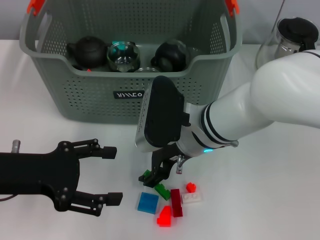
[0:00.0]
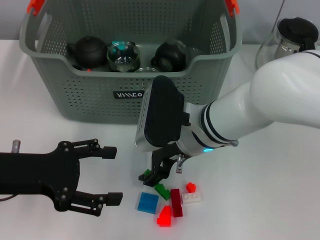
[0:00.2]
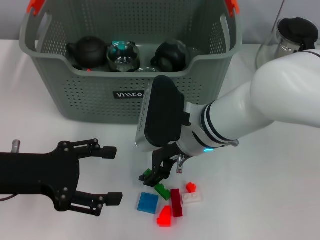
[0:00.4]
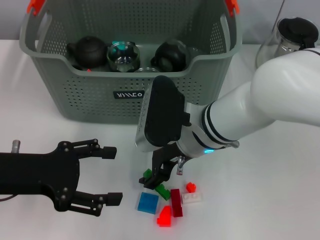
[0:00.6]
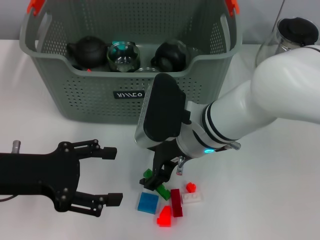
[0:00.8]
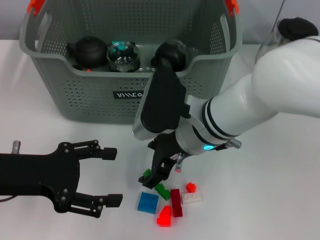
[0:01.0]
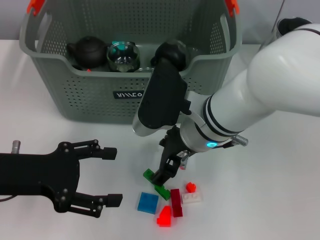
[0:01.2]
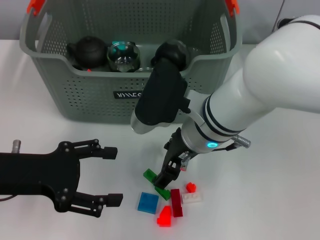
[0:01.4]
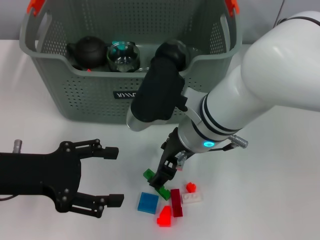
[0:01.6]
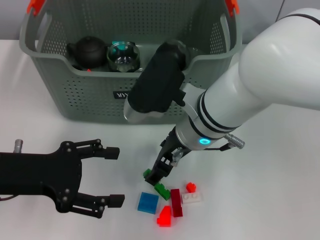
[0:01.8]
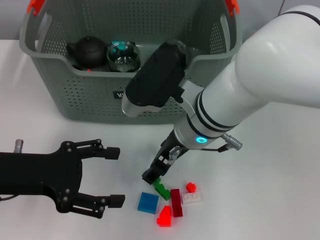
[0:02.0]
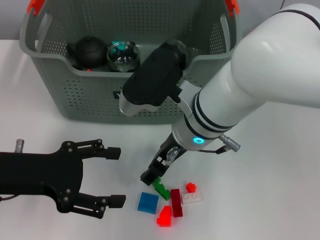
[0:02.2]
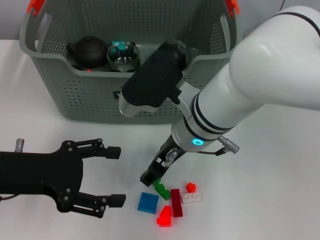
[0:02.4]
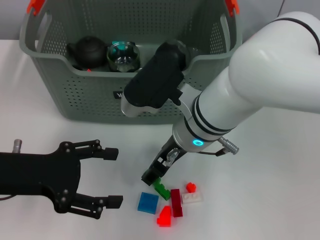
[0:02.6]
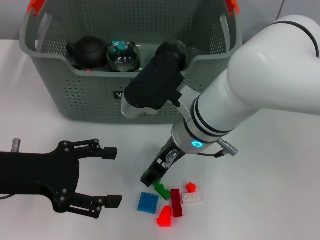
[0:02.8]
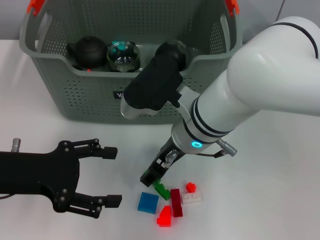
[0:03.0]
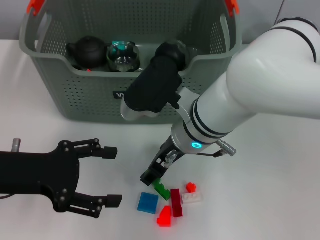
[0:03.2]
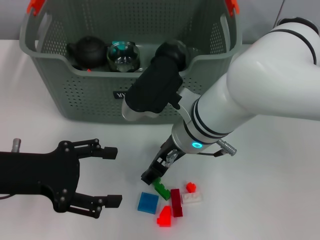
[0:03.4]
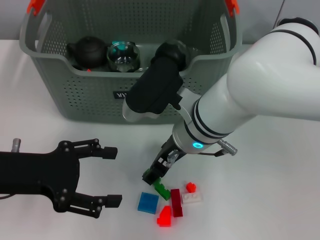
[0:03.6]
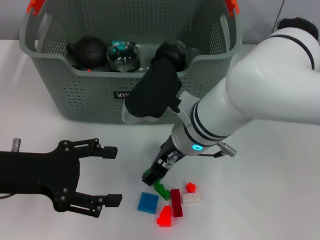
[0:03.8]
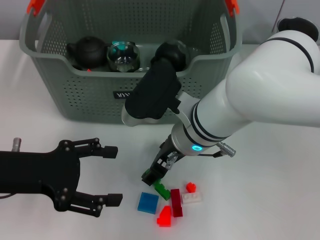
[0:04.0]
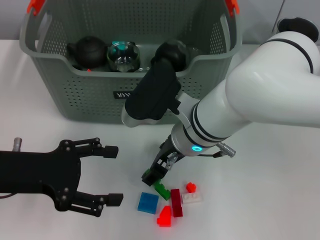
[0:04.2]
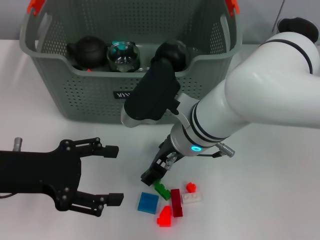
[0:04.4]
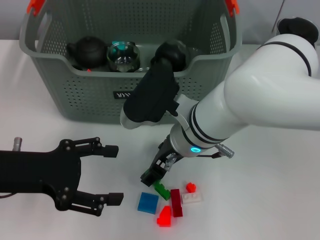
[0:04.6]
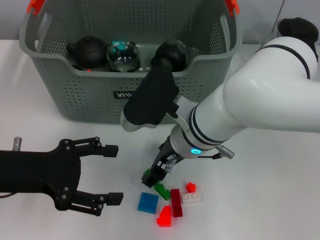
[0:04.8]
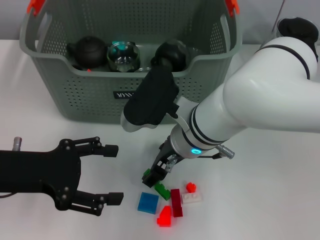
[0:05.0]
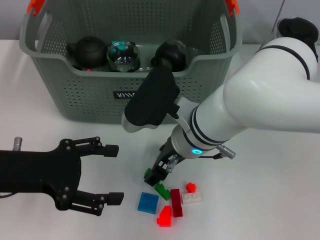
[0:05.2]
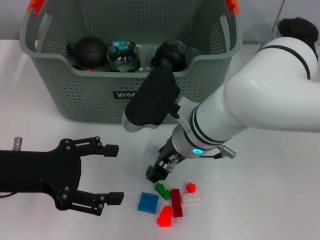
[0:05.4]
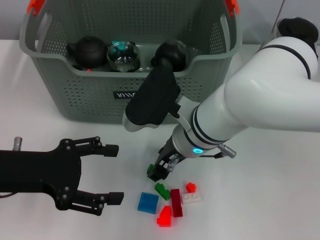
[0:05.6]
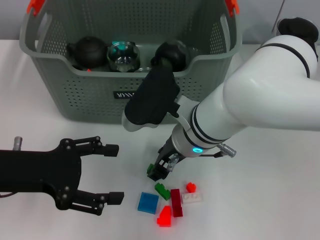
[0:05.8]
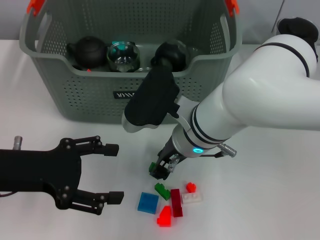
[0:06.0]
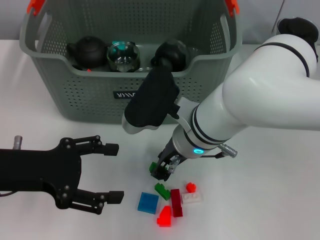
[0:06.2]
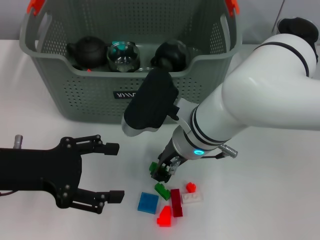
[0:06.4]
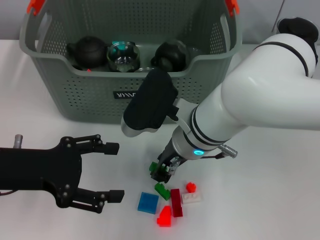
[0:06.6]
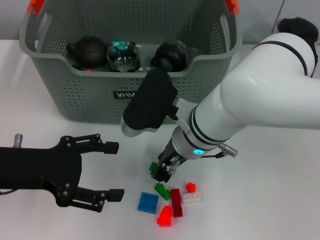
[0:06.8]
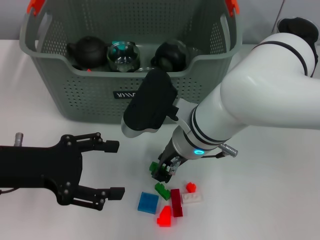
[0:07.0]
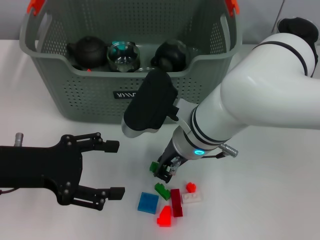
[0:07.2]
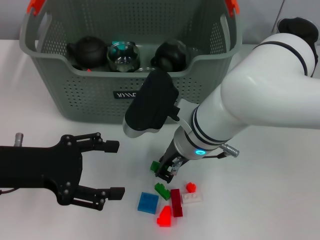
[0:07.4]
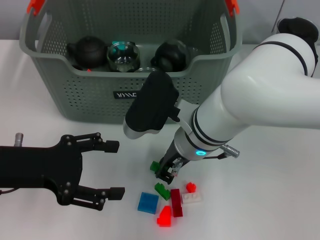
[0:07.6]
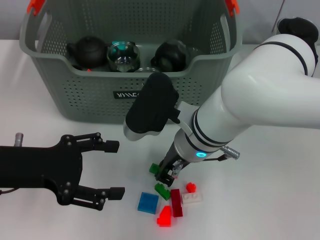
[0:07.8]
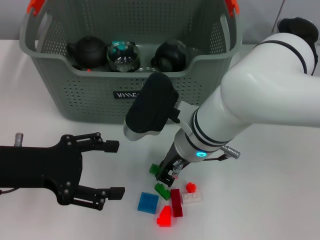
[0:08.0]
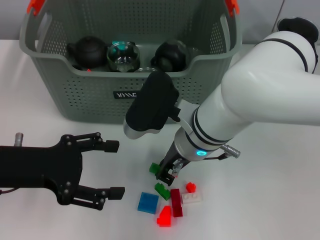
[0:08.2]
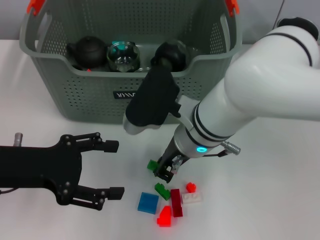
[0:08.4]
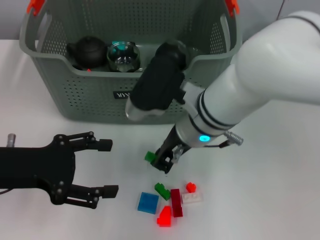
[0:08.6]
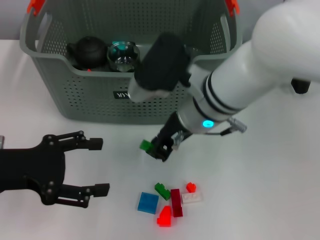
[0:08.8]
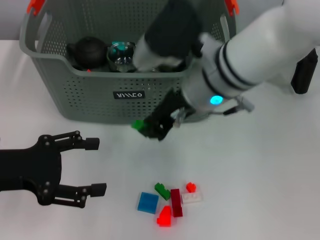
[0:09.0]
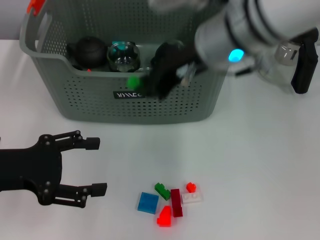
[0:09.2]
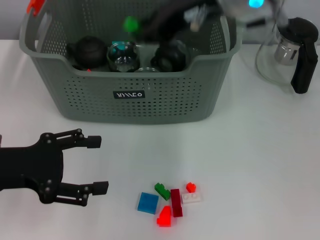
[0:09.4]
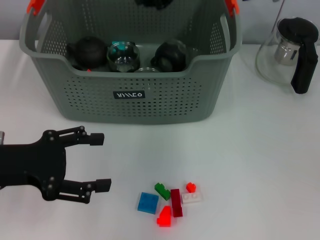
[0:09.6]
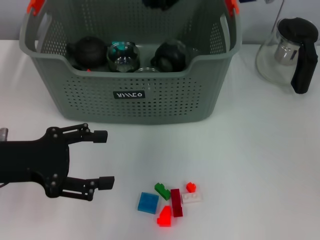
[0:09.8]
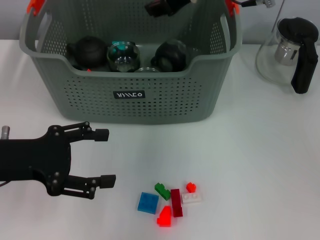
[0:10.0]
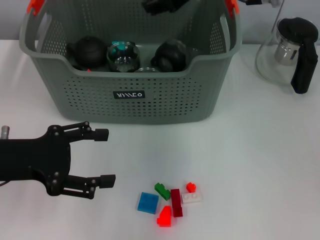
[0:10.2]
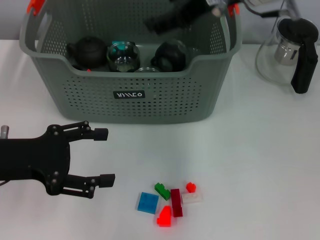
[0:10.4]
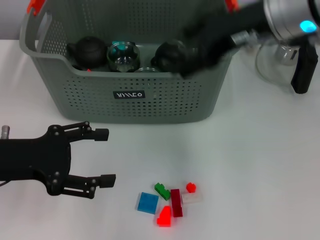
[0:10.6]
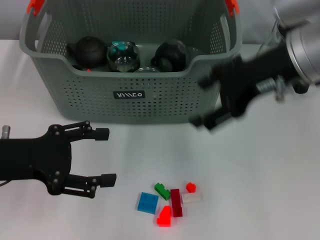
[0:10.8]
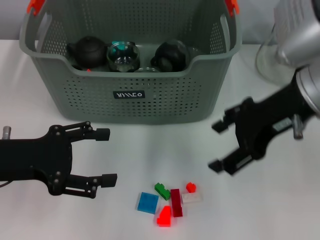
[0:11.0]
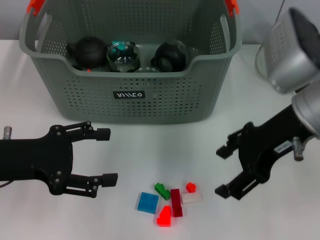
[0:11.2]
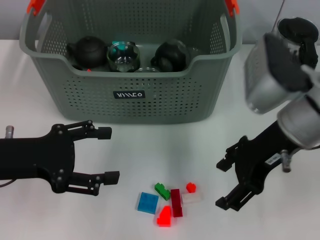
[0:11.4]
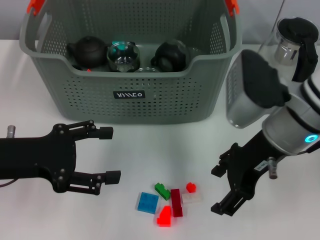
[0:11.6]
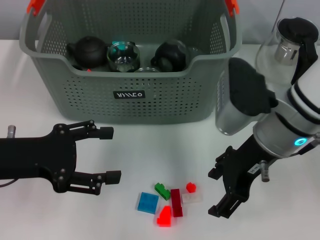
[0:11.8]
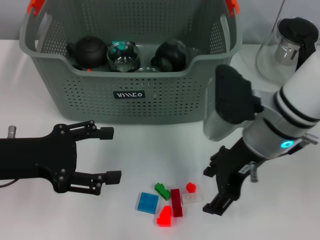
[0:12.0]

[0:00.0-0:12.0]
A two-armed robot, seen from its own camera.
Task of the whole recording: pick up the teacup on the table and place it into the storage bin, pick up the block on the table and place it into the storage bin.
Step, 0:00.0 to 0:07.6: Grasp the green block with right gripper.
Step, 0:07.8 to 0:09.8: Place the green block in the storage box with right gripper.
0:00.0 to 0:01.6: The grippers make only small movements.
0:01.6 to 0:03.0: The grippers stay close to where they were, moving slightly.
0:03.0 to 0:04.4: Both grippers stay put.
0:04.4 to 0:06.0: The right gripper closes its fingers.
0:06.0 to 0:07.6: The right gripper closes its fingers.
0:07.6 to 0:09.0: The right gripper heads upward, covering roughly 10 cm.
0:09.0 to 0:10.4: The right gripper heads upward, to the right and forward, covering some 10 cm, and opens its fingers.
0:10.4 to 0:12.0: The right gripper is displaced downward and backward by some 15 cm.

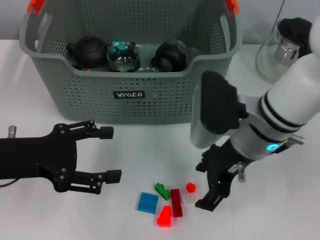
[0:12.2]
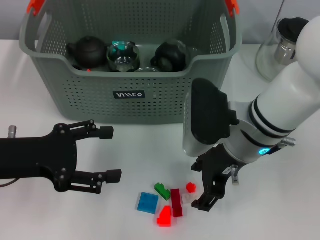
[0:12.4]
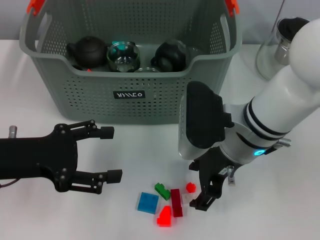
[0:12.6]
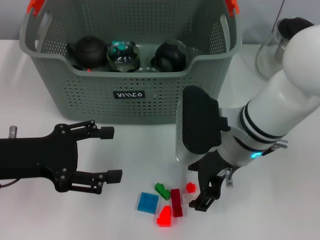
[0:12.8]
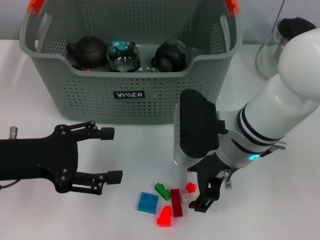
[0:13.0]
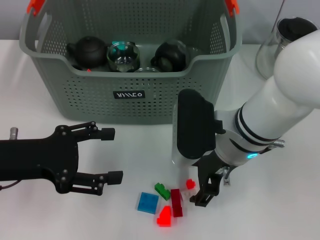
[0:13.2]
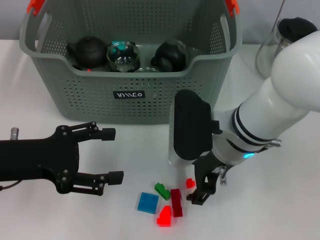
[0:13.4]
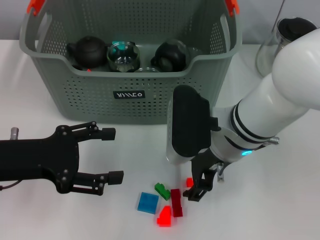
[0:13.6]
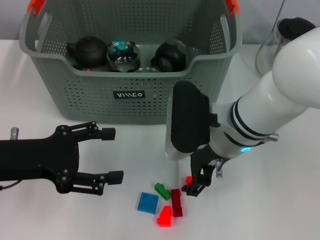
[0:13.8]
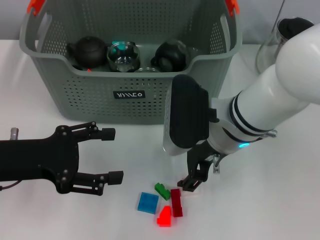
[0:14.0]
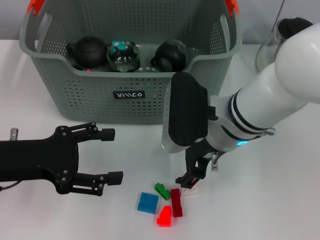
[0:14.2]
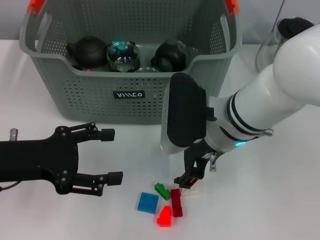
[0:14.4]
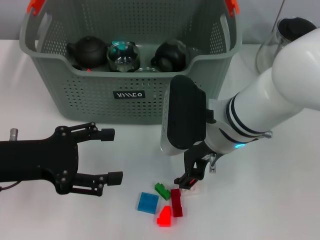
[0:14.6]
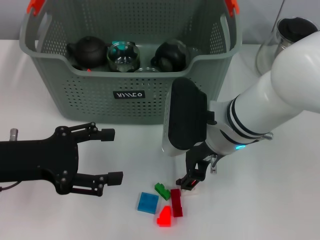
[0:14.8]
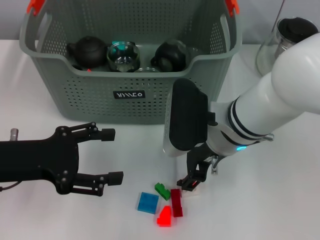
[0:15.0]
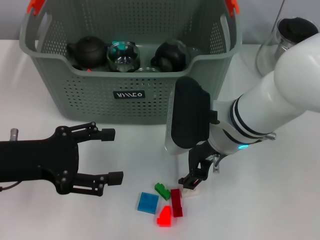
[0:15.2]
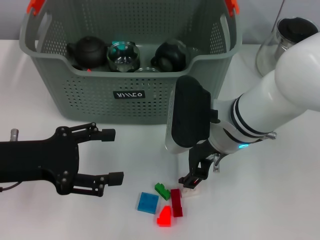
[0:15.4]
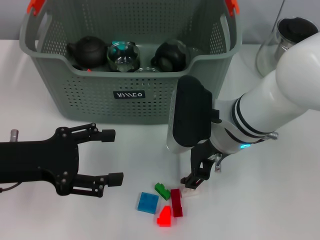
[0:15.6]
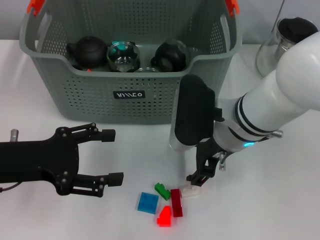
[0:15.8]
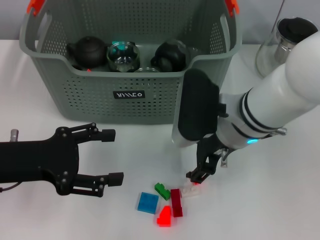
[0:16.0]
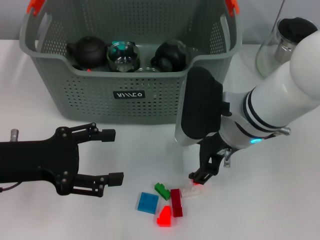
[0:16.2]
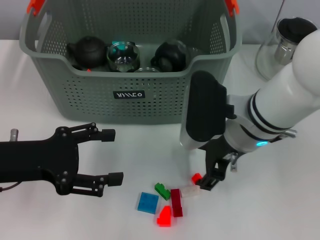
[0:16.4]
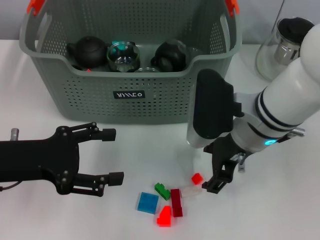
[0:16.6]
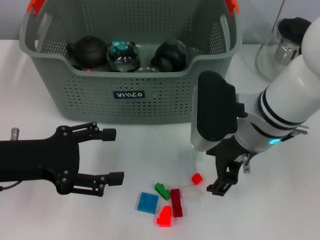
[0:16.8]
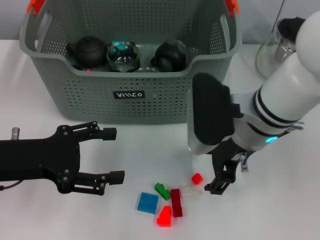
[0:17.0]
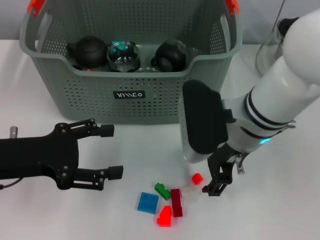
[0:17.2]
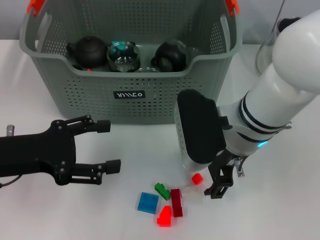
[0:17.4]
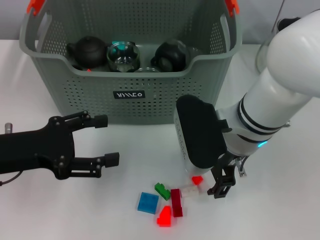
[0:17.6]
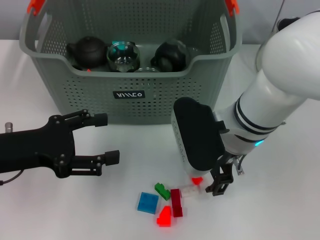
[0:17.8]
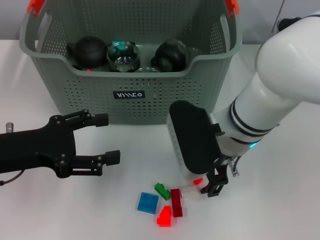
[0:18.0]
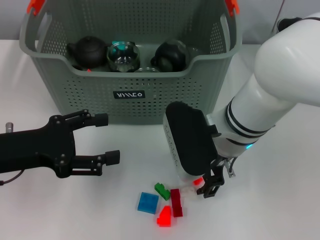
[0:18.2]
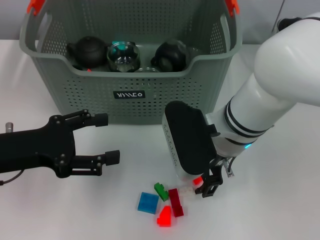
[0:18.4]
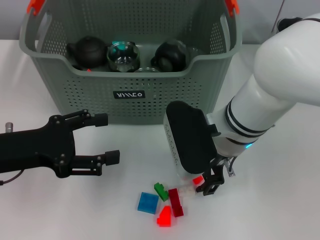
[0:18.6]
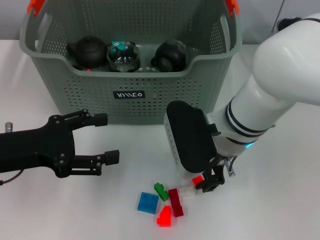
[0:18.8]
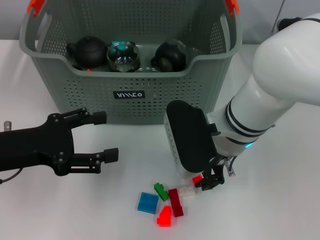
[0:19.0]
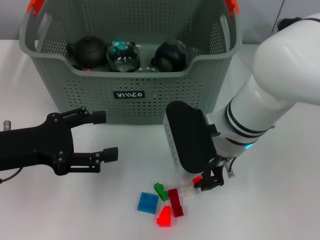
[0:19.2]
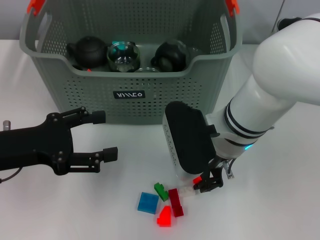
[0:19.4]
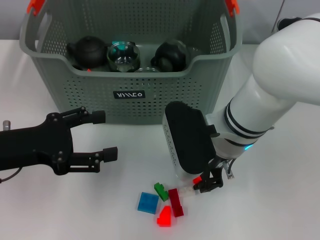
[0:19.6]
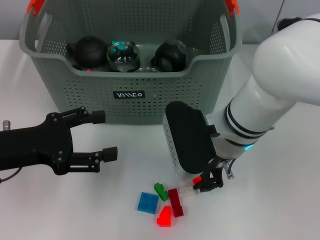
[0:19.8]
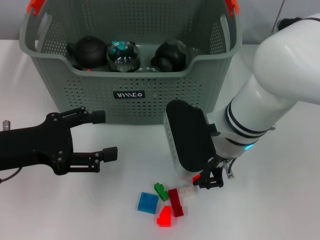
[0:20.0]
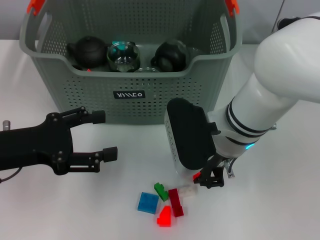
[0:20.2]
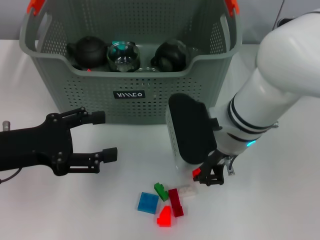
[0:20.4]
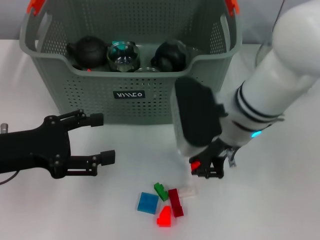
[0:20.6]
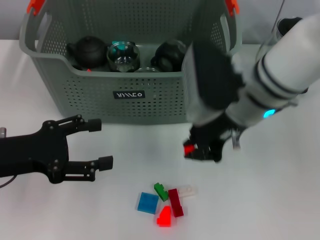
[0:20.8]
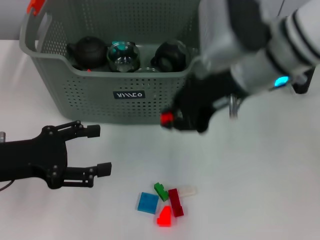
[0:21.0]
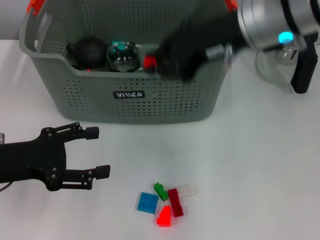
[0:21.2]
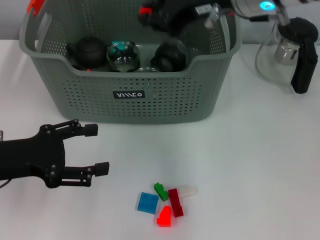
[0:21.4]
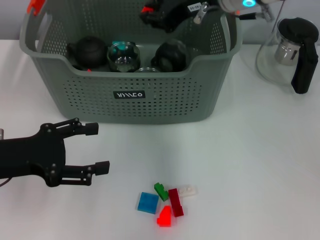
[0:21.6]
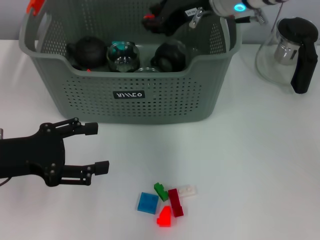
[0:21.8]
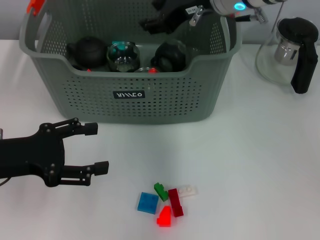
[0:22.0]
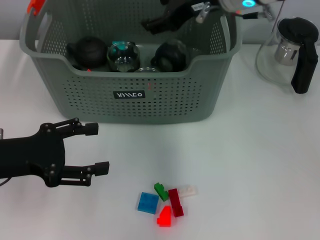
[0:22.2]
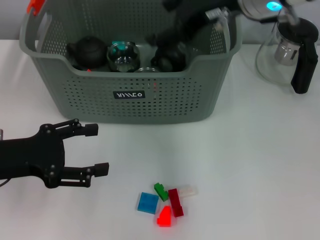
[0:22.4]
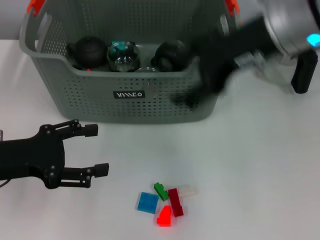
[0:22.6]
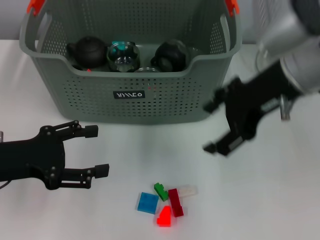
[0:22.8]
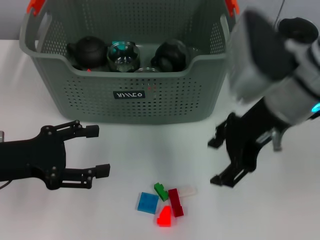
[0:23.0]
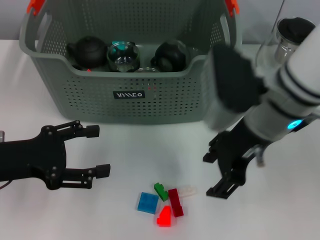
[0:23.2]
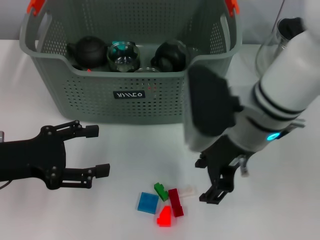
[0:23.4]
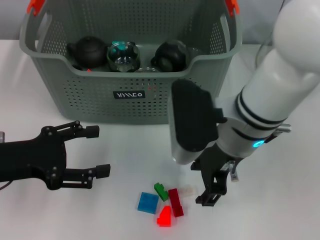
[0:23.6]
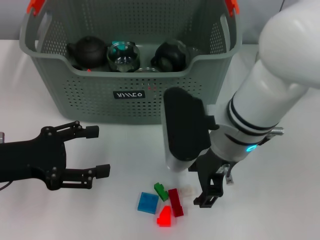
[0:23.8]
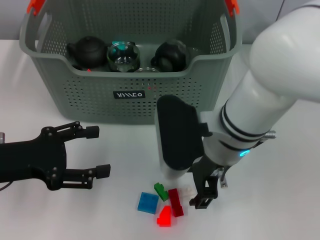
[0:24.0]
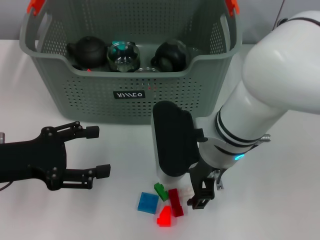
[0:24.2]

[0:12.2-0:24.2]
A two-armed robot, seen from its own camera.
Task of the whole recording: pick up the teacup on the table and place it into the storage bin, pick up the block on the table and place it into the storage bin.
Step, 0:12.2 to 0:19.6: Grasp the orange block with right gripper.
Step, 0:20.0 to 0:22.0: Place the orange block in the storage box with right gripper.
0:12.2 to 0:13.8: The grippers move only a little.
0:13.8 to 0:15.2: Neither gripper changes place.
0:15.2 to 0:16.6: There are only small adjustments of the grippers.
0:18.2 to 0:19.8: The right gripper closes its fingers.
0:19.8 to 0:21.2: The right gripper travels upward by some 15 cm.
0:21.2 to 0:22.6: The right gripper opens its fingers.
0:22.6 to 0:24.2: The right gripper travels downward and to the left by approximately 15 cm.
